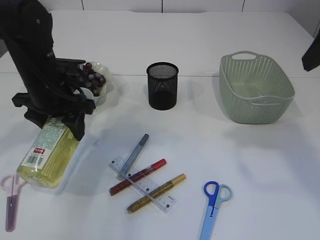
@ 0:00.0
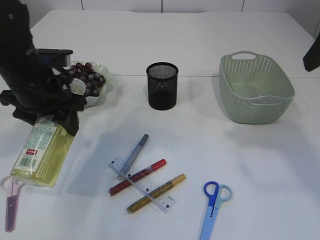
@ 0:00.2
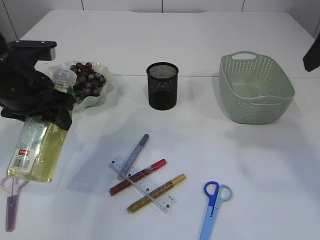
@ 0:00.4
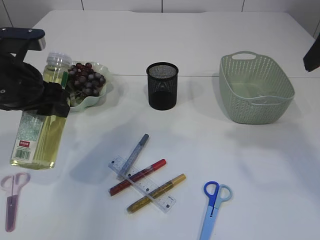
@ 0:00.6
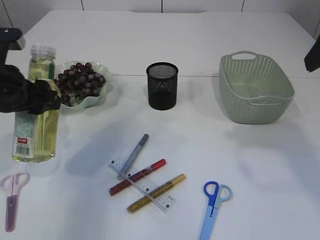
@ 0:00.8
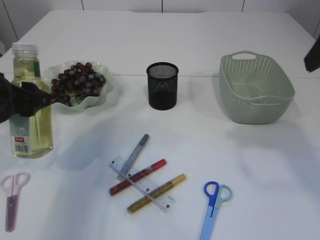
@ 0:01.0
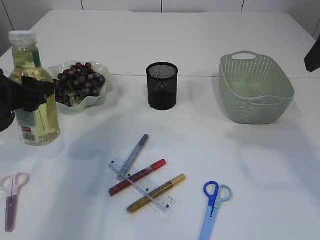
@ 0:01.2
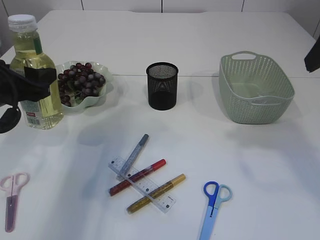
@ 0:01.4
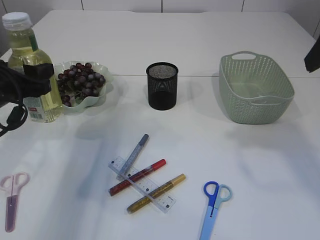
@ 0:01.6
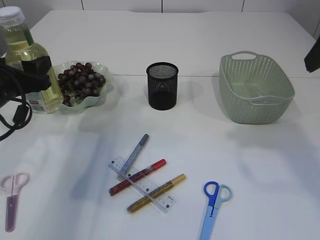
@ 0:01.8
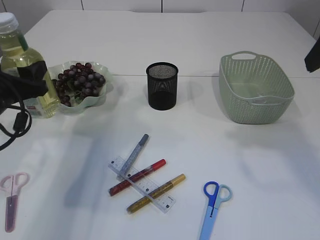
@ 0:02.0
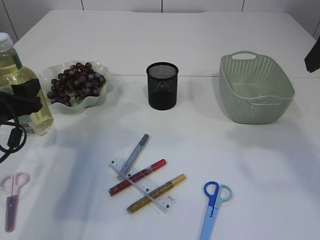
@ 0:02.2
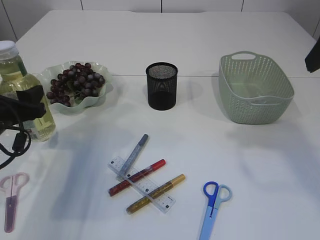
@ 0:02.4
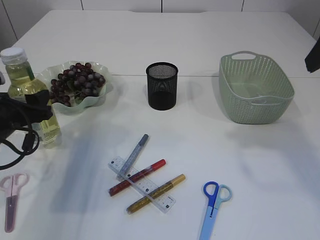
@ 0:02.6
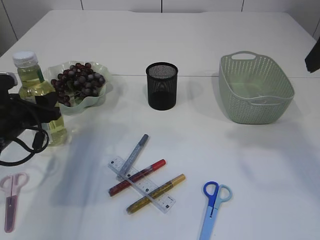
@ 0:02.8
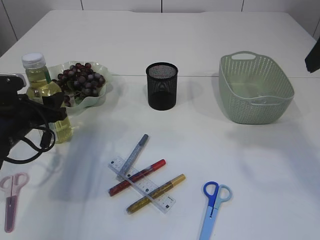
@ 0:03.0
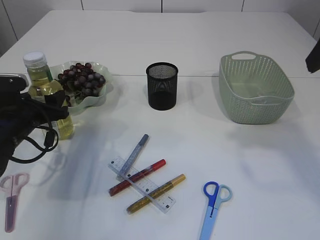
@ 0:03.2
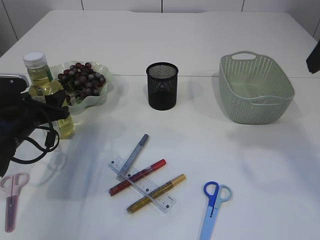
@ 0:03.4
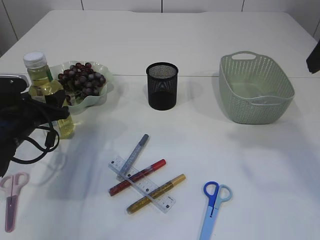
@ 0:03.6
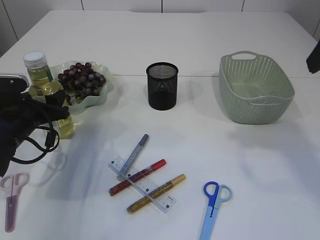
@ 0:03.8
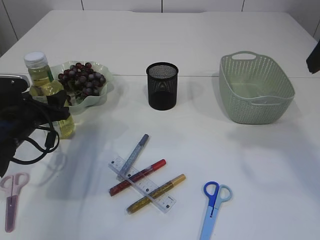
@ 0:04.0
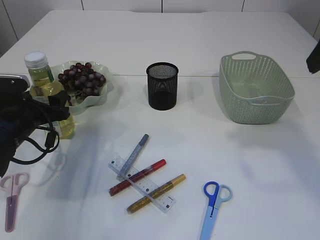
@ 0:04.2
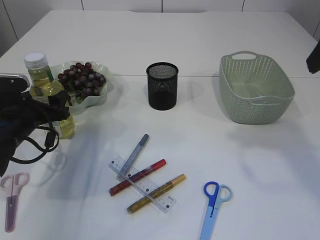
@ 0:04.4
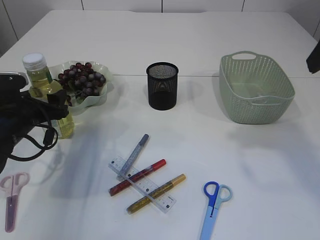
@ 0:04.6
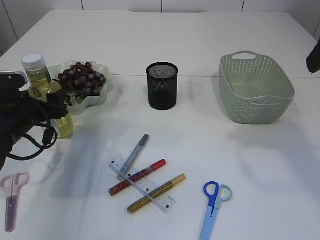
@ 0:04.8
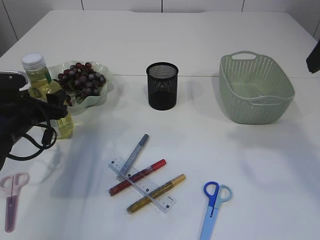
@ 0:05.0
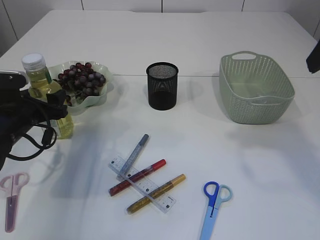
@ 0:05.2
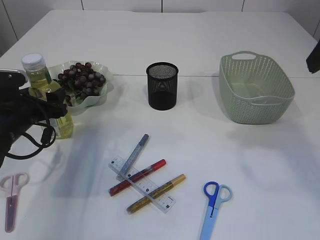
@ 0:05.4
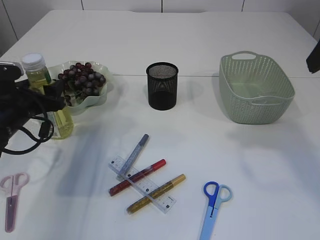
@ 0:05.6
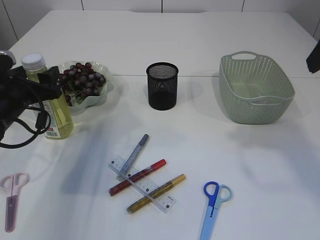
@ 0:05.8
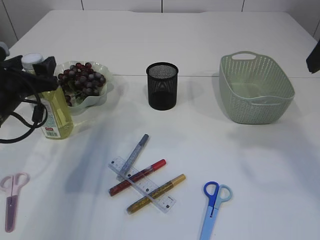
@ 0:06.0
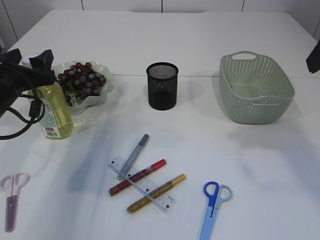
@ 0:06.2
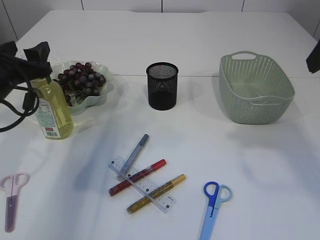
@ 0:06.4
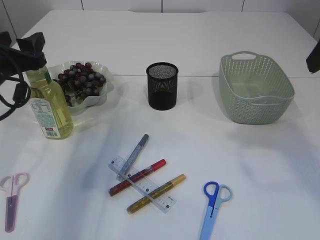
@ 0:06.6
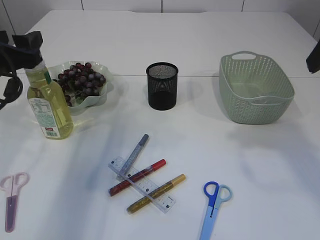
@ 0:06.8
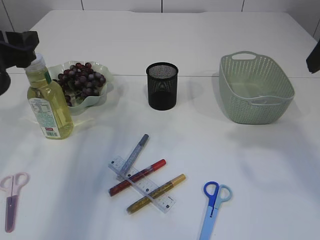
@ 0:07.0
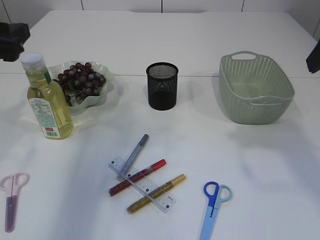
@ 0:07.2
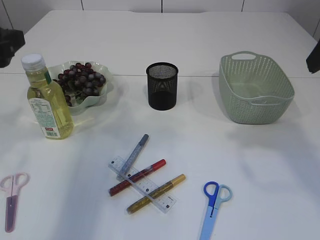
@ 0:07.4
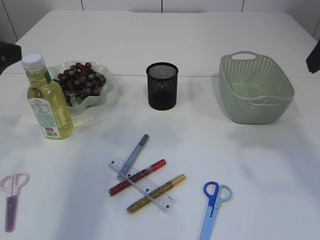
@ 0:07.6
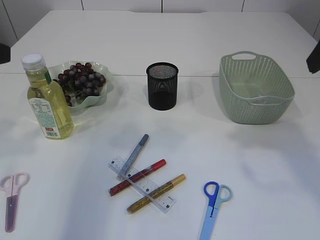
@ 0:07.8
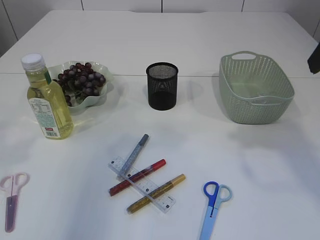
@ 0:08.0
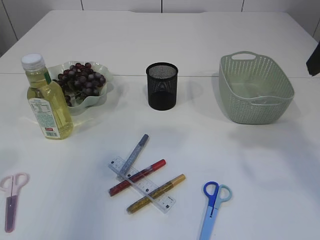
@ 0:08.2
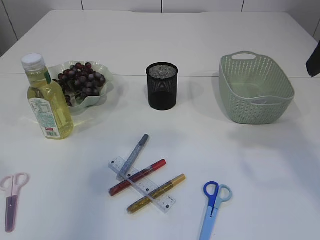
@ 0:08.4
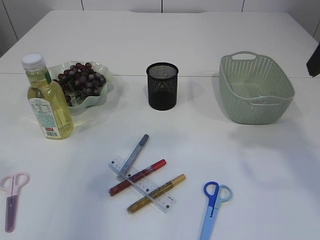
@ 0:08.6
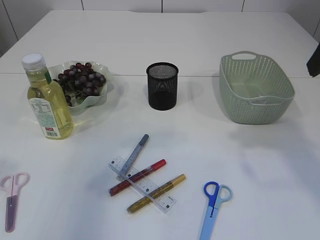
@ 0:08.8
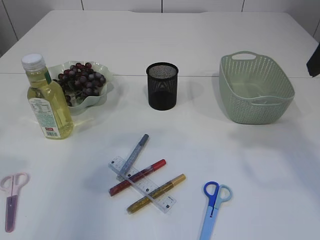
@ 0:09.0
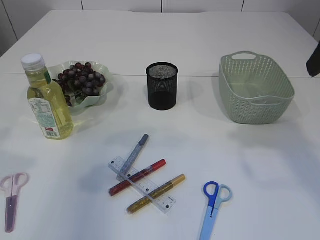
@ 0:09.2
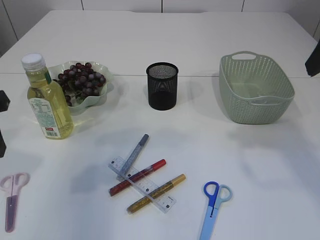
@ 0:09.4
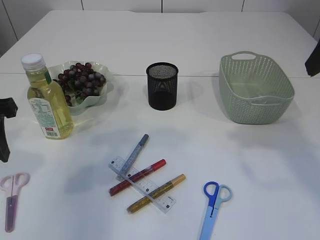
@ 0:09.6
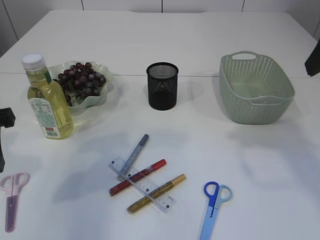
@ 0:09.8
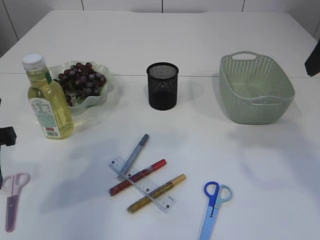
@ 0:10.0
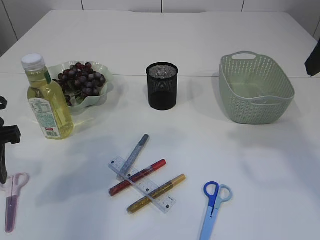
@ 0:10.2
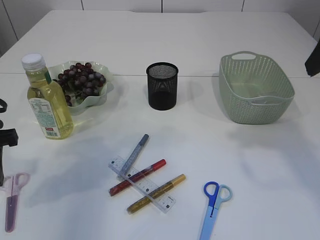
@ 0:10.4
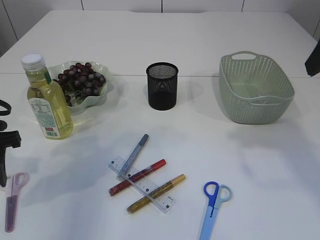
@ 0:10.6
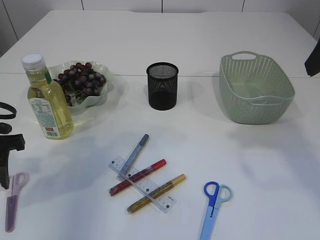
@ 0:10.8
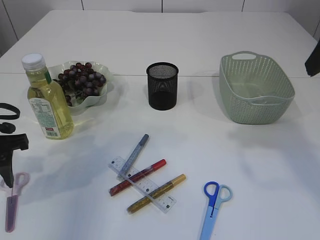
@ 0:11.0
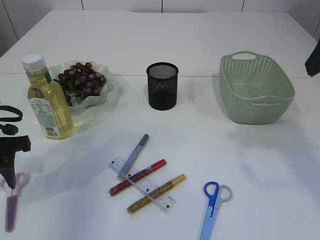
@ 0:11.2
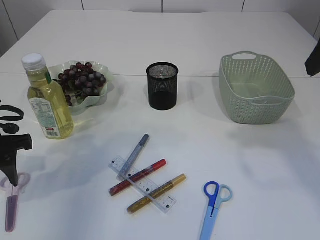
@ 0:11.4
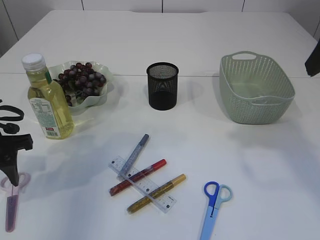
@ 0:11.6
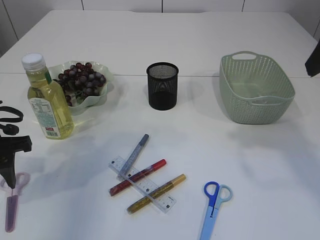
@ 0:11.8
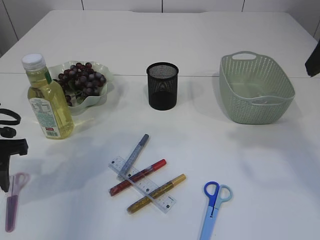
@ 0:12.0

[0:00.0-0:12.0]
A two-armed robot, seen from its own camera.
Step, 0:00.2 to 0:06.2: Place the bottle.
0:00.0 to 0:01.6: The left gripper travels to the left and backward by about 10 cm.
0:01.6 to 0:03.0: The left gripper is displaced downward by approximately 10 cm.
0:03.0 to 0:04.4: Neither gripper changes place.
0:04.4 to 0:06.0: The left gripper heads upward, covering approximately 5 cm.
0:06.0 to 0:07.6: The left gripper is displaced upward and backward by some 15 cm.
0:09.0 to 0:10.4: The left gripper travels downward and forward by about 15 cm.
0:10.4 to 0:12.0: There are only small adjustments of the grippers.

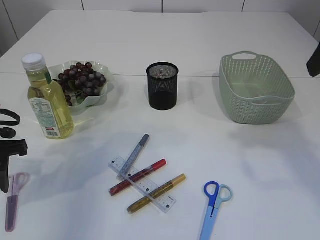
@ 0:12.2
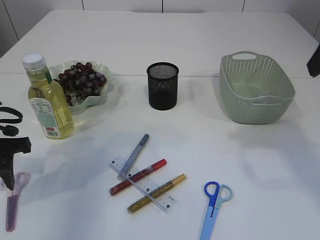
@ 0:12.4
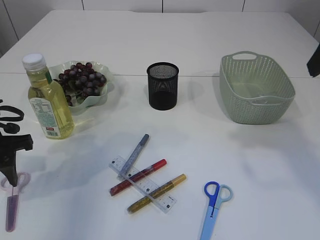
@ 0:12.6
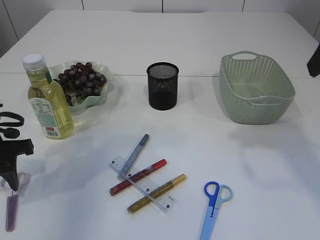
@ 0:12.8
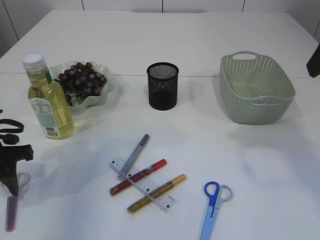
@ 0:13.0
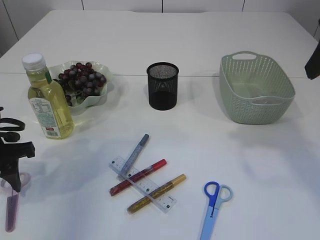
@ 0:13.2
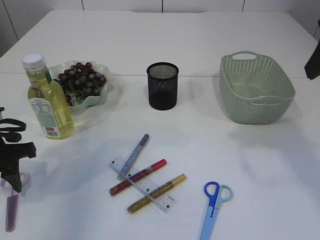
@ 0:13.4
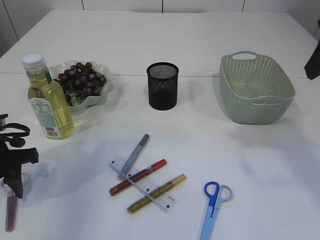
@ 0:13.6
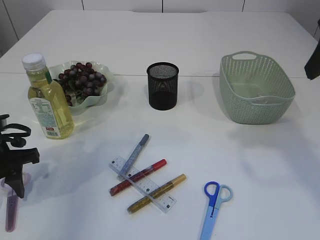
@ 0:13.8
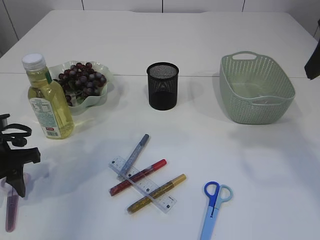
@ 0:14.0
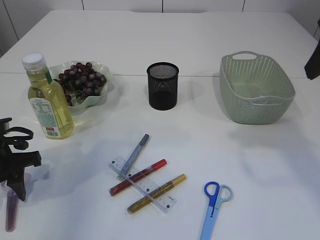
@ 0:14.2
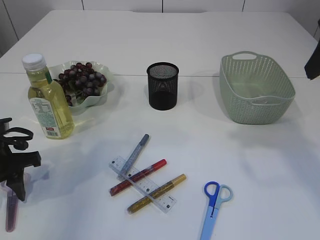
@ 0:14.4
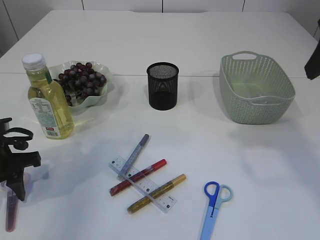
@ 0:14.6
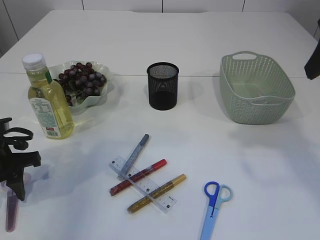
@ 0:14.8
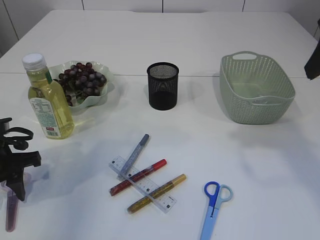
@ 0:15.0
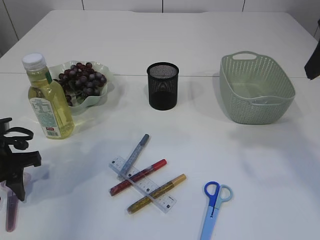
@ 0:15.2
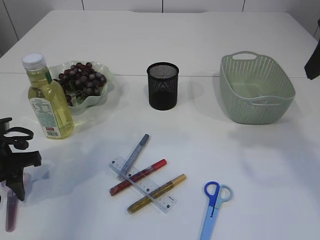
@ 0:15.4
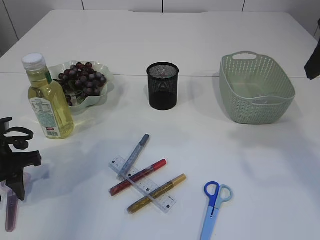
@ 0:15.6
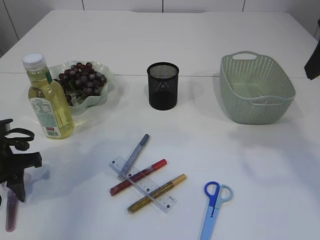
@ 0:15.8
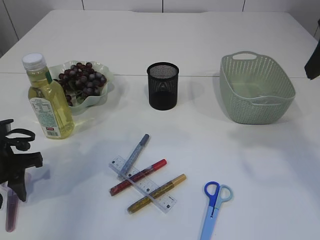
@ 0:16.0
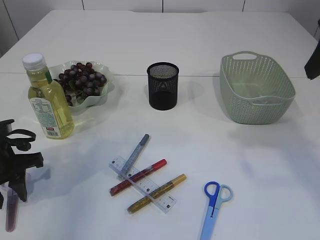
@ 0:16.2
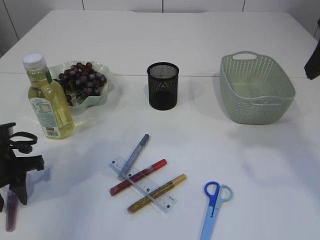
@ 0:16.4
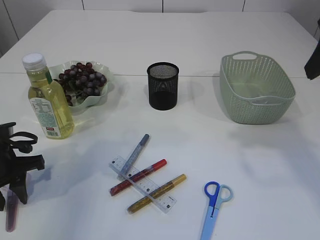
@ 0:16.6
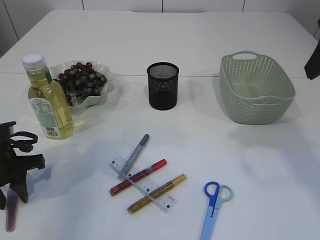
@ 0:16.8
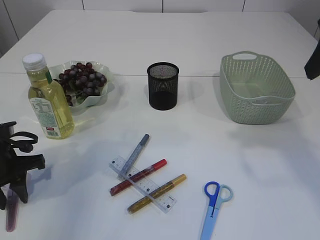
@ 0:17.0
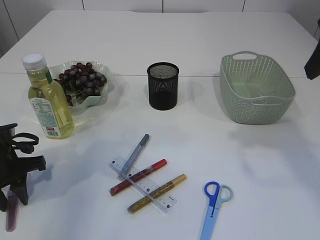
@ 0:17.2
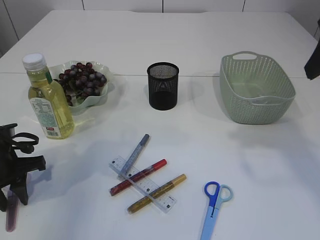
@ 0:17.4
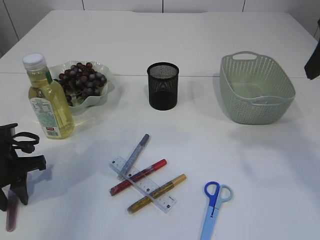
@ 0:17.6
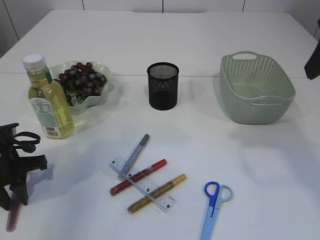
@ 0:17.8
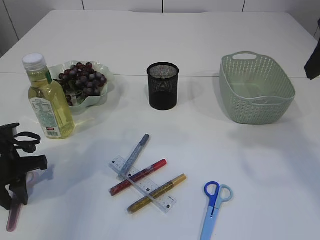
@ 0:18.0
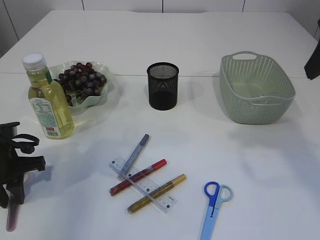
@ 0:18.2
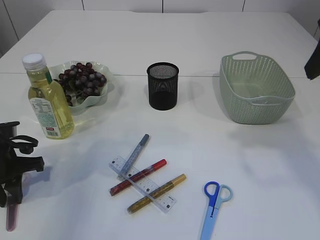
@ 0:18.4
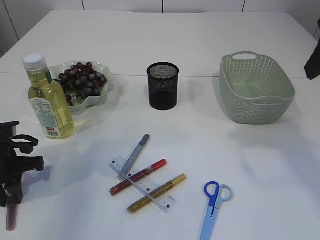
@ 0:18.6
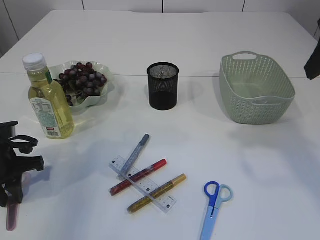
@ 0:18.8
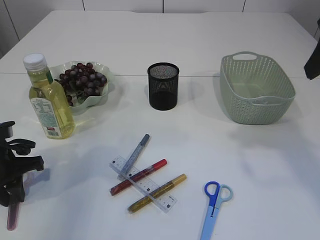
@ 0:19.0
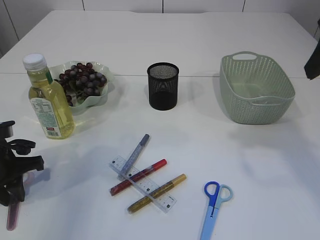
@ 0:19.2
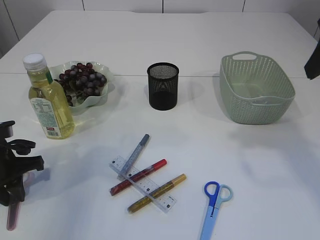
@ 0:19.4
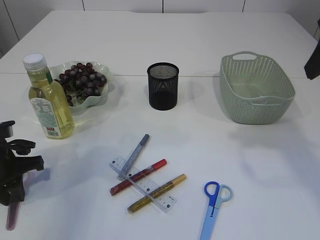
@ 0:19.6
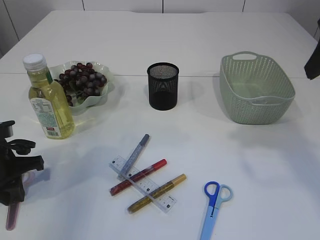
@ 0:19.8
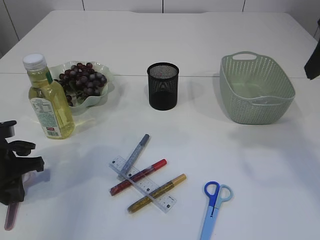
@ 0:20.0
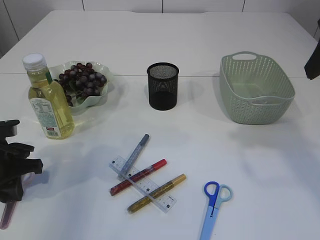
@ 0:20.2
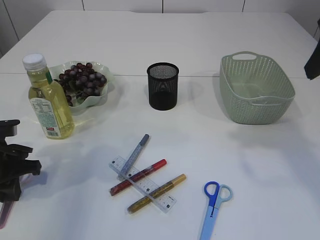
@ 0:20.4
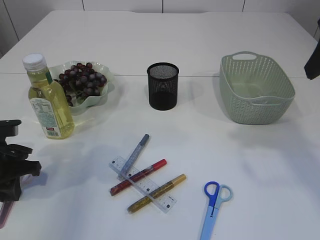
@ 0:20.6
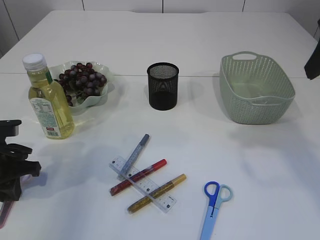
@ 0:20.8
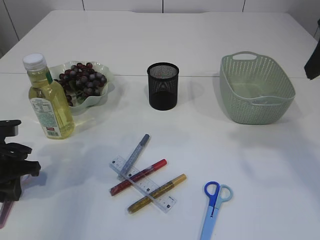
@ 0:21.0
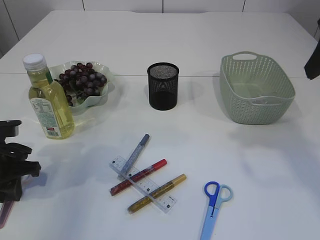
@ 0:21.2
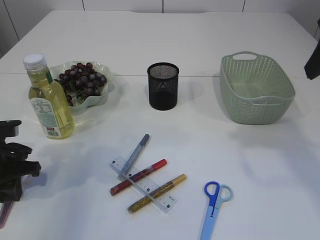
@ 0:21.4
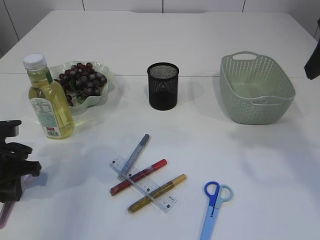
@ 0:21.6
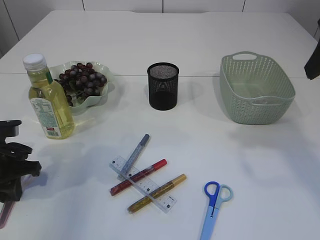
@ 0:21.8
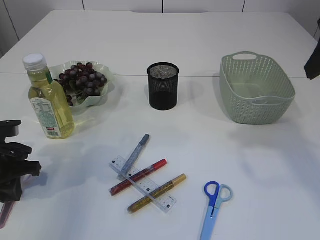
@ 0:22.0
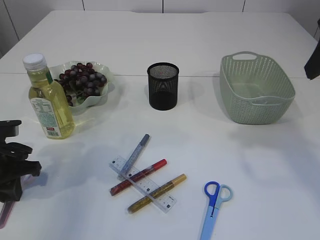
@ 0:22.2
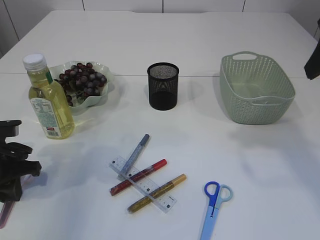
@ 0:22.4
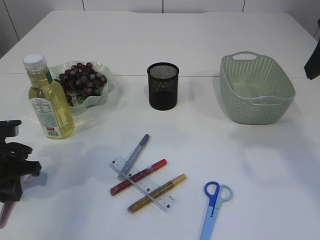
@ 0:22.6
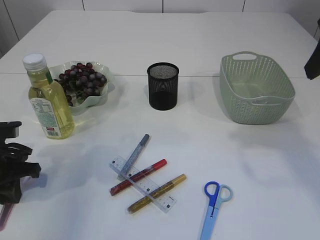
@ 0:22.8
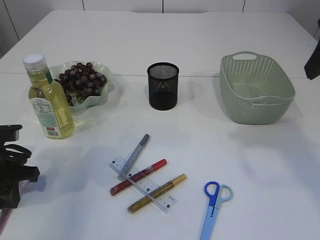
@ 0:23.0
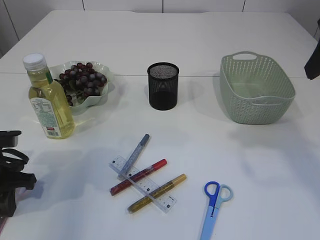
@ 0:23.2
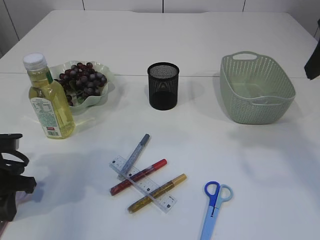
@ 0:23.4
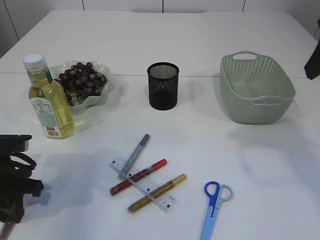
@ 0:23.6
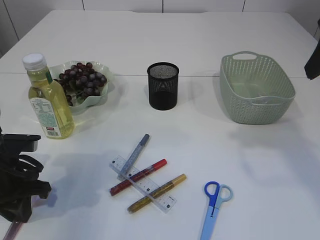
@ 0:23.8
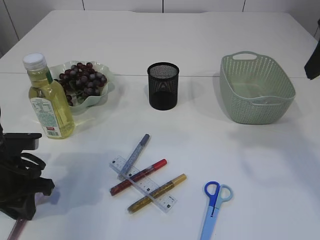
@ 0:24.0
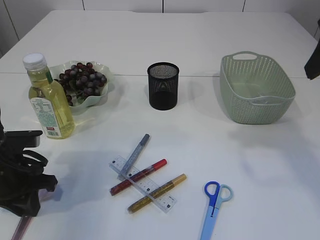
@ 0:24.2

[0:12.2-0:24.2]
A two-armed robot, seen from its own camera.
0:12.2 to 0:13.8: The grippers stay close to where they were, moving slightly.
0:13.8 to 0:15.2: Both grippers stay put.
0:15.2 to 0:16.6: Neither gripper changes place.
0:16.6 to 0:19.8: Both grippers stay put.
0:19.8 to 0:21.2: The grippers make only small movements.
0:21.2 to 0:22.6: The two grippers keep their place.
0:22.6 to 0:24.2: The grippers make only small movements.
